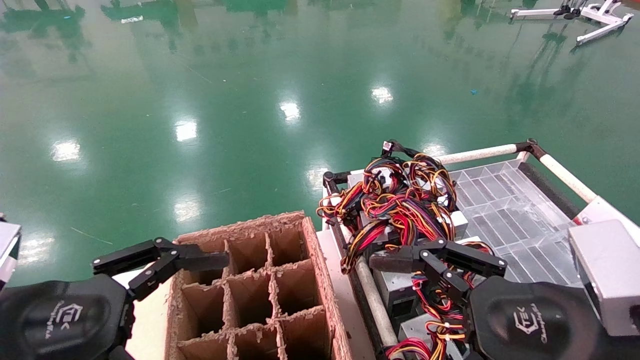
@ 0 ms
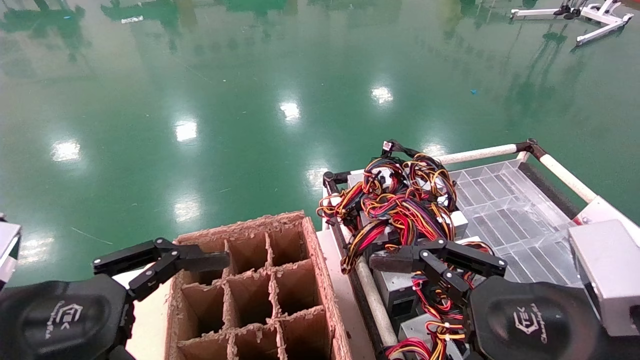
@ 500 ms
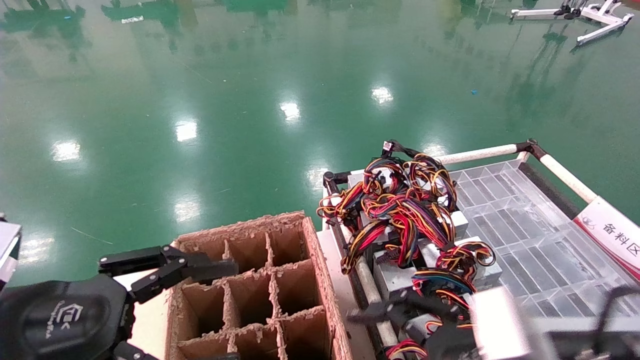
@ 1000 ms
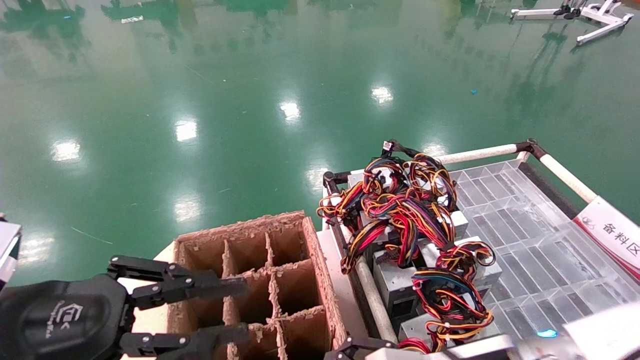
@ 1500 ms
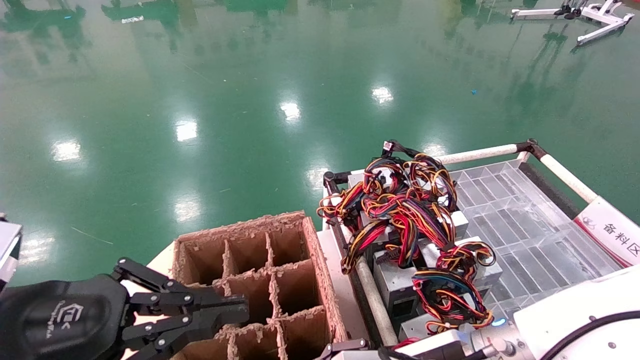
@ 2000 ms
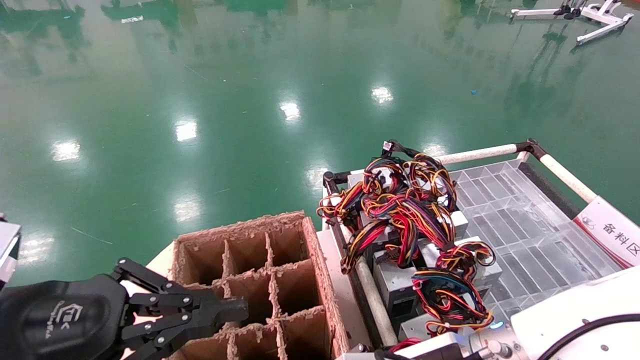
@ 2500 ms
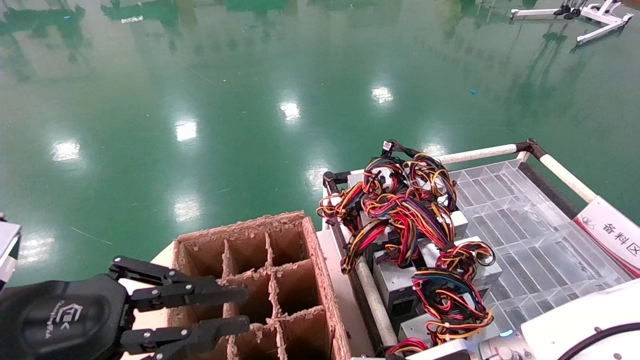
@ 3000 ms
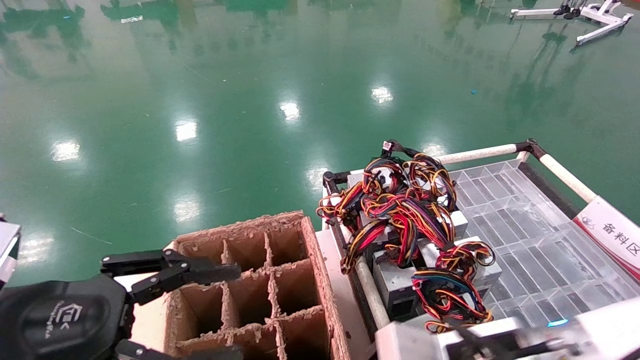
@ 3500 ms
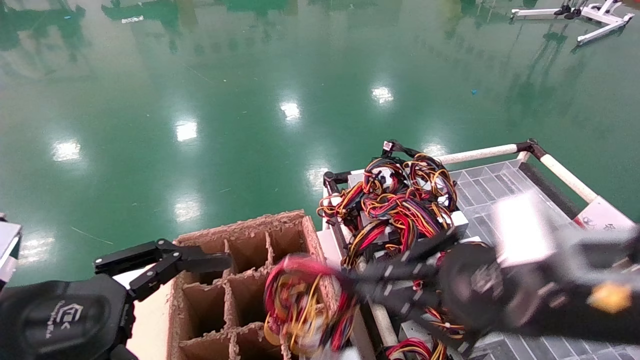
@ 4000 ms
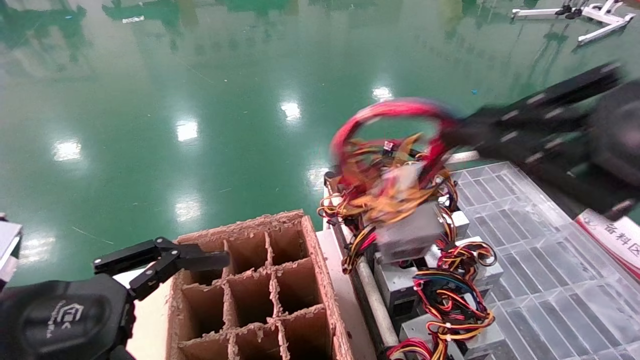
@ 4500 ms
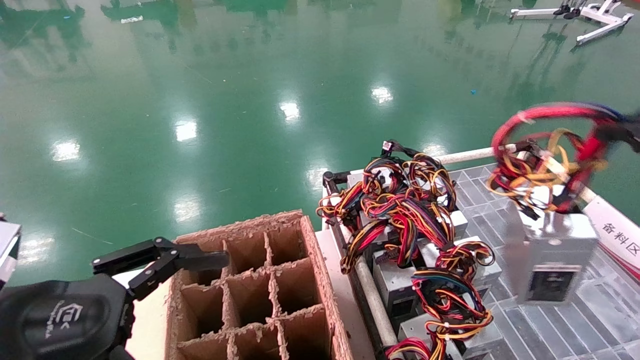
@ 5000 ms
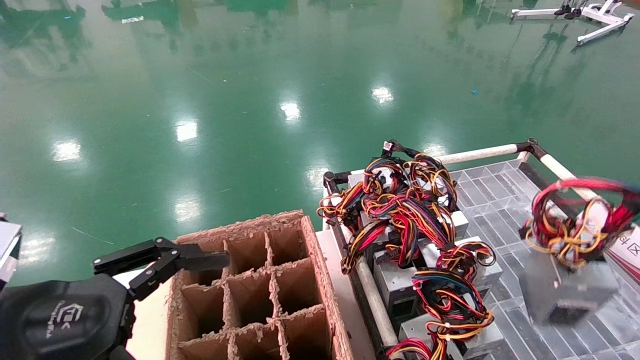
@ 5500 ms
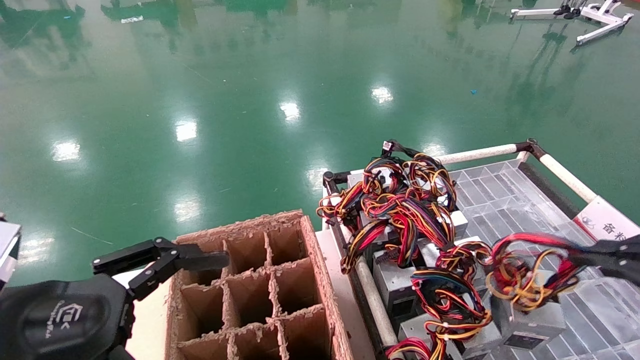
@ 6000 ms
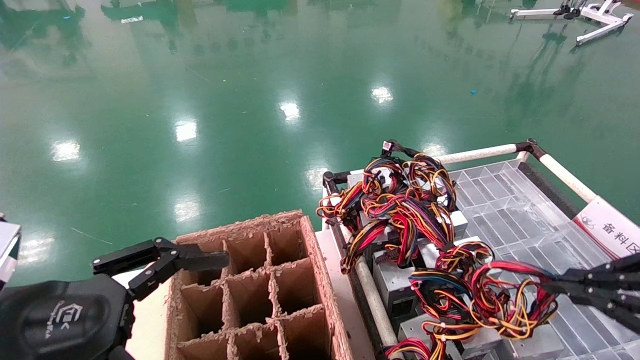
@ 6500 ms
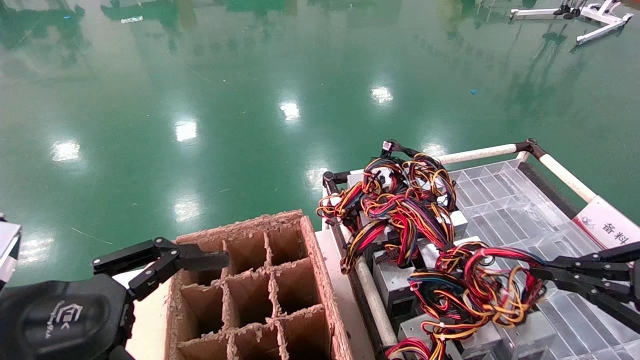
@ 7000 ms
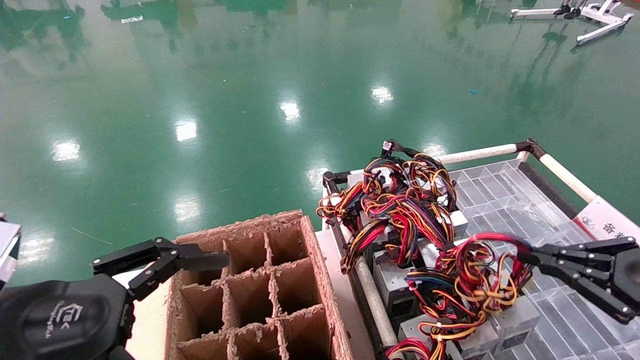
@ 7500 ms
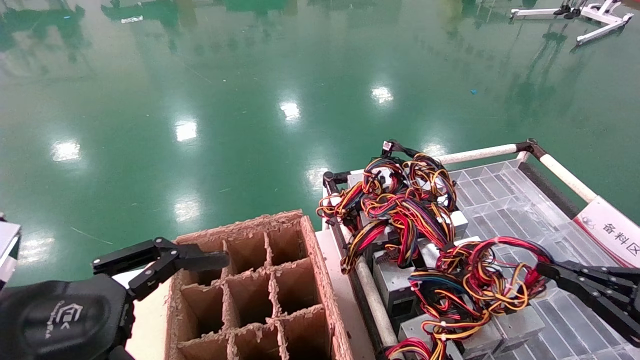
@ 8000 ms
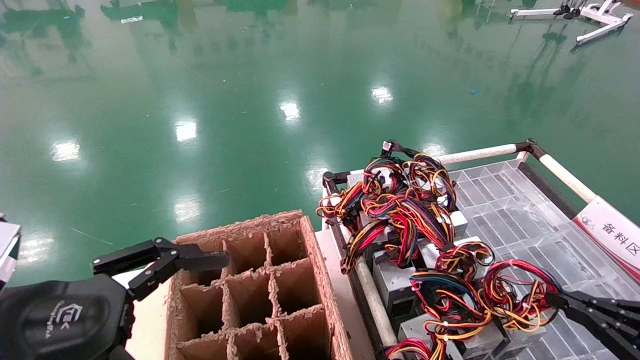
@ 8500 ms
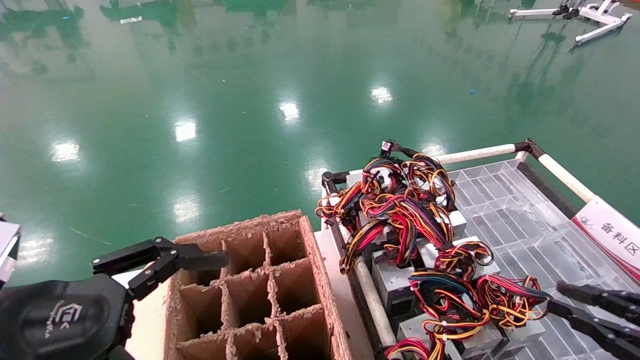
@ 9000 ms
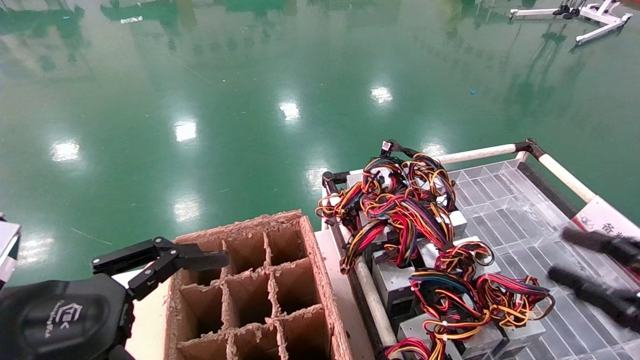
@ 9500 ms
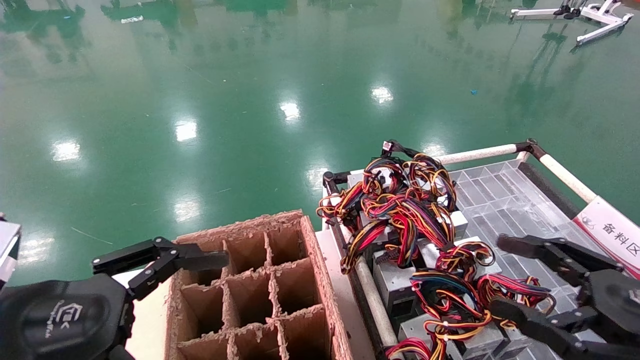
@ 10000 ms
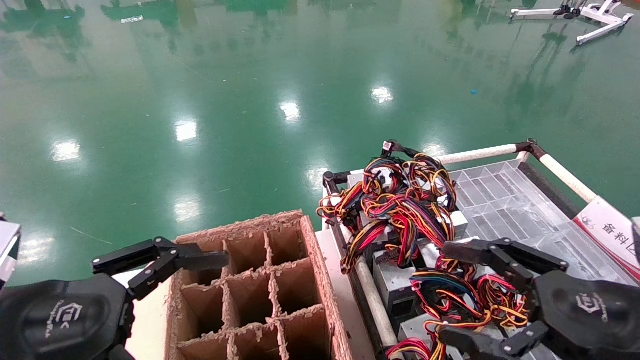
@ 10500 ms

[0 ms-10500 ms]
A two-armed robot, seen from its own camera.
Step, 1000 ms to 3000 ms: Grab and lift the power supply from the large box.
Step, 3500 ms to 8500 ms: Place the power supply on the operating table.
0 ms to 2000 ms: The left gripper closes up, while the right gripper goes some 15 cm to the left, downward and forward.
2000 ms to 4000 ms: The right gripper travels upward, to the right and backward by roughly 15 cm, and closes its fingers, while the left gripper opens.
4000 ms to 6500 ms: The right gripper is displaced to the right by roughly 20 cm.
6500 ms to 8500 ms: The right gripper is displaced downward by about 15 cm.
8500 ms to 10500 ms: The right gripper travels to the left and upward by approximately 20 cm, and opens its fingers.
